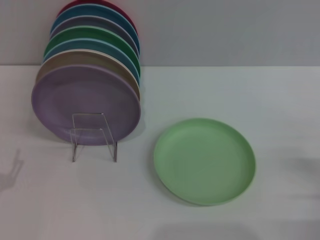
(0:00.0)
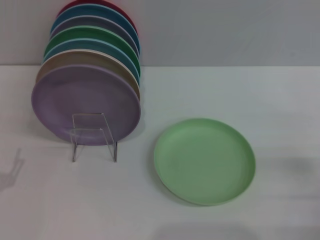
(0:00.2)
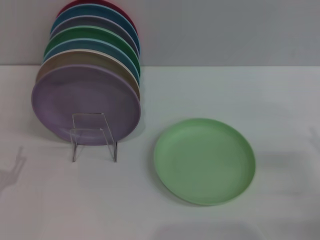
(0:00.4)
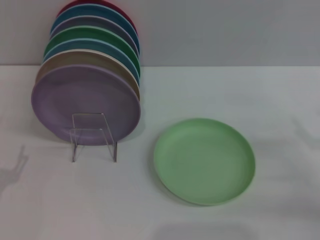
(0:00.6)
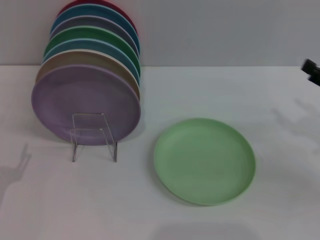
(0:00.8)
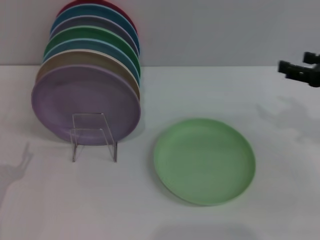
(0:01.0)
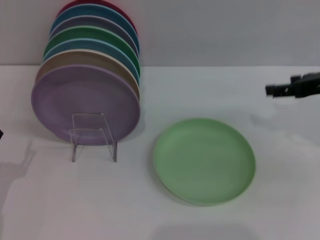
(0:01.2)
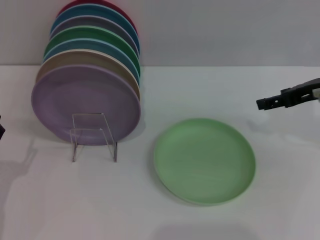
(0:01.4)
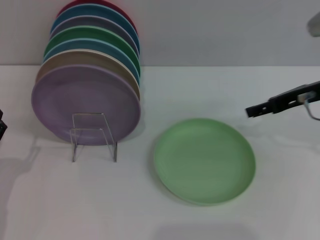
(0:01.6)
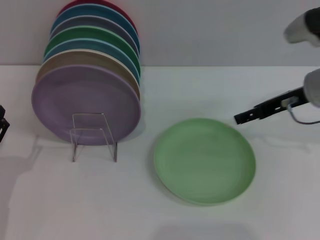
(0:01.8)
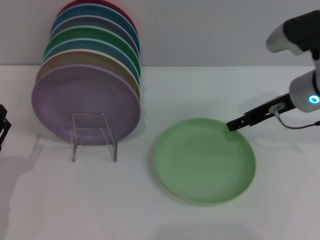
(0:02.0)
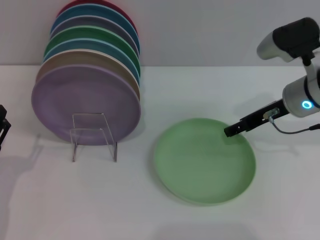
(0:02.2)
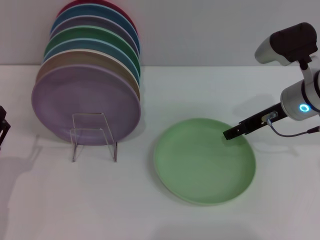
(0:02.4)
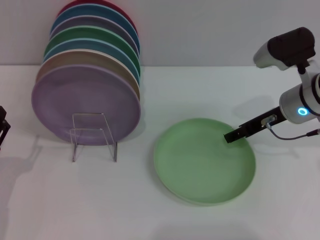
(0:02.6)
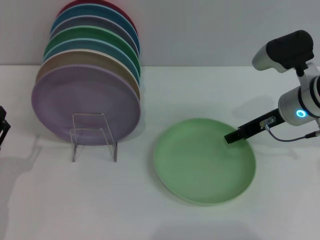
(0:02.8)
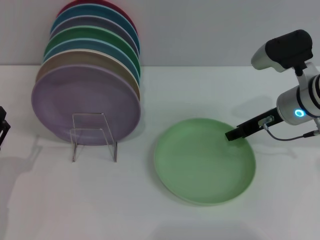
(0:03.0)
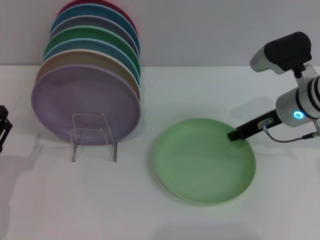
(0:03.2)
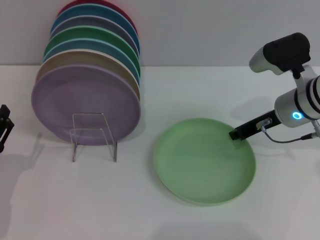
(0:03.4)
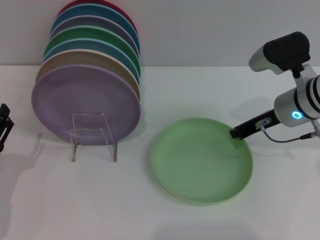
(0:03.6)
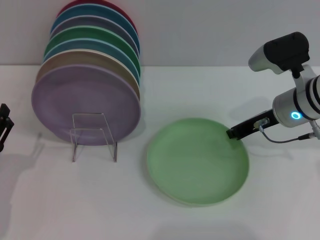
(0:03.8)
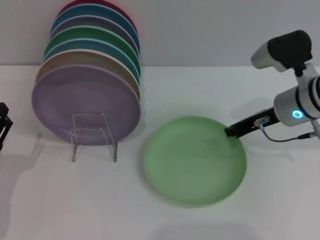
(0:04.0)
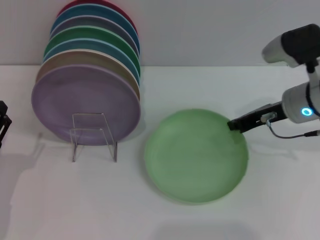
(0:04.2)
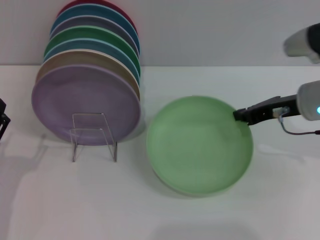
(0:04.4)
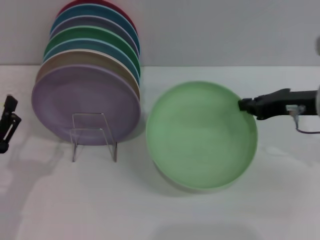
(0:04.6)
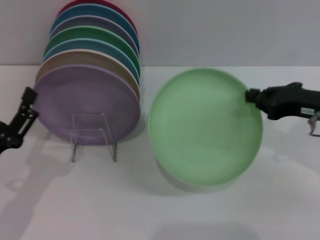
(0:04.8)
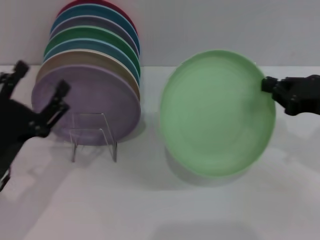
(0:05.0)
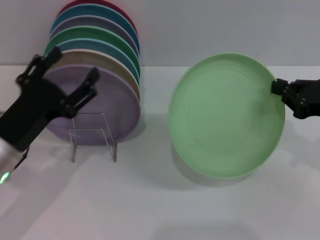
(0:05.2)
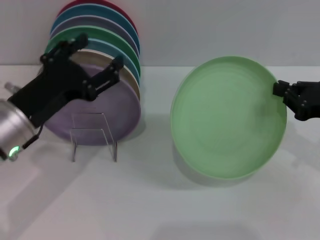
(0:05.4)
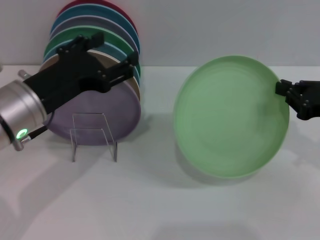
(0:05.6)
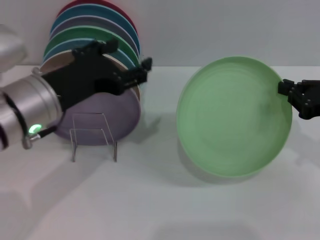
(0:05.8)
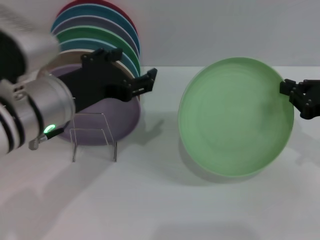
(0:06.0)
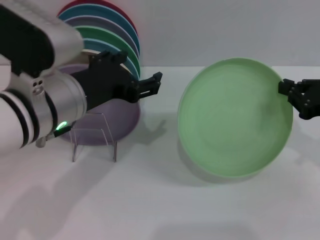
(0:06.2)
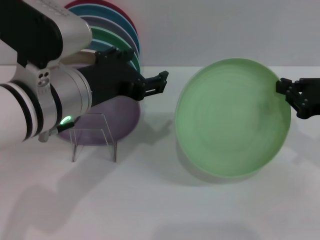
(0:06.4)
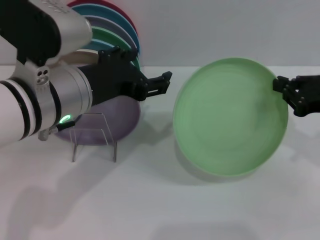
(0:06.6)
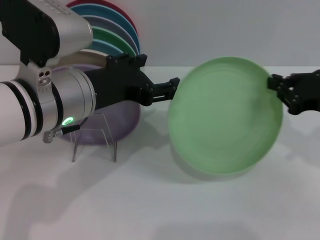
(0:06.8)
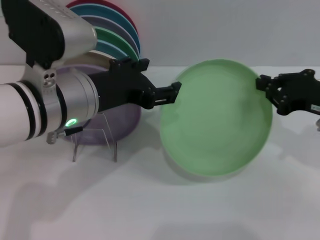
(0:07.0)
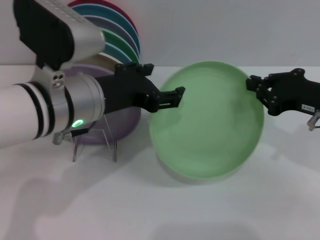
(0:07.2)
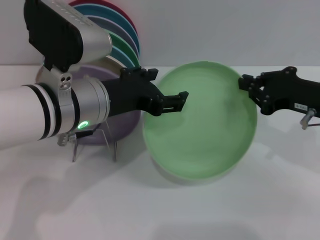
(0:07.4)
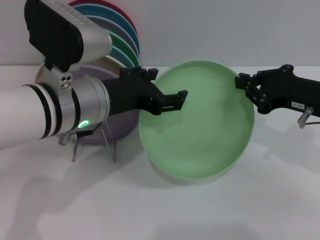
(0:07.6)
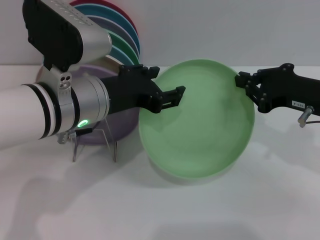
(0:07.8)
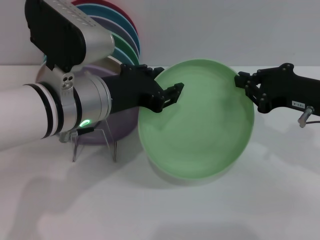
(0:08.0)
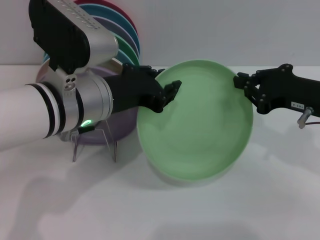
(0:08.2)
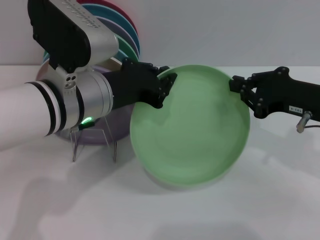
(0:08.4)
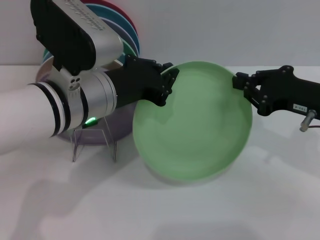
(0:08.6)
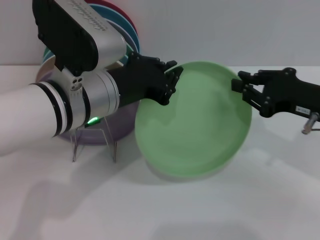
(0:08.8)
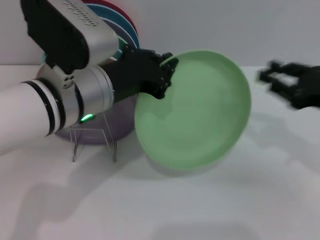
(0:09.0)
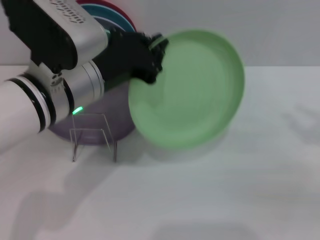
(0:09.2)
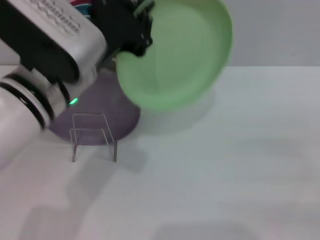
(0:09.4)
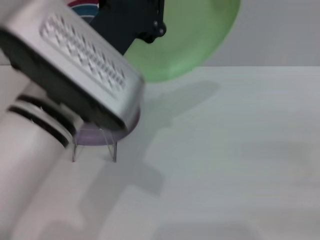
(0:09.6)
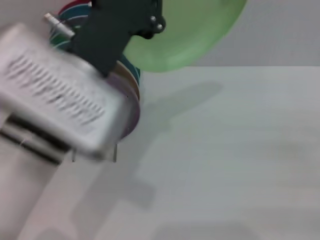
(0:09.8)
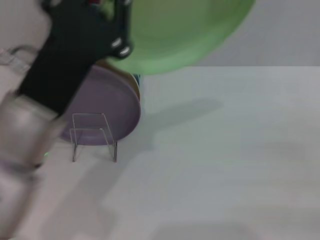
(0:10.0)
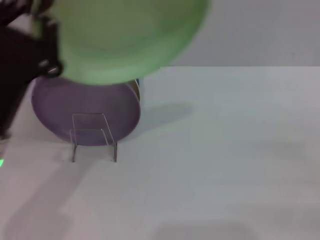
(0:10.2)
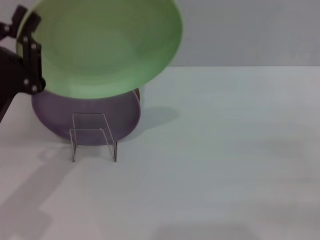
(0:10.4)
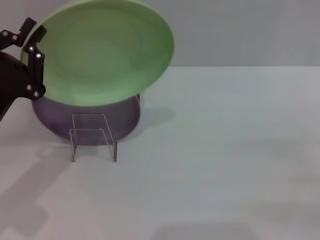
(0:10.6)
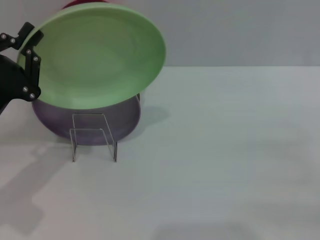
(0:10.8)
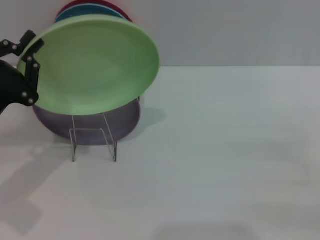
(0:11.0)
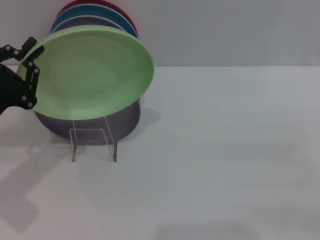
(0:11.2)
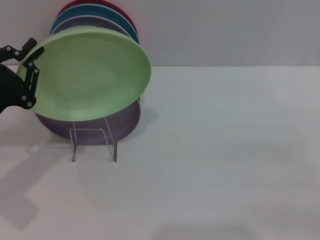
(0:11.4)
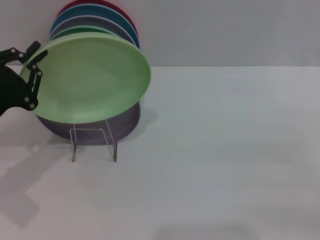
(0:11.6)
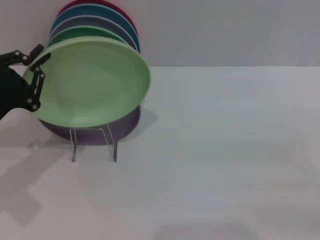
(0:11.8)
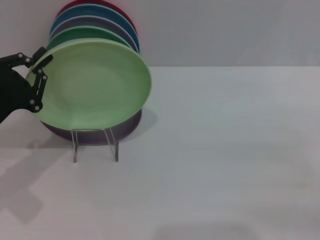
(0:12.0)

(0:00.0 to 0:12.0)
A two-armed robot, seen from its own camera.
Task of the whole recording: Grip the plate with one hand, pass it to the other, then set it on the shelf.
Step, 0:00.0 - 0:05.0: Pick up the plate with the right gripper.
Step, 0:05.2 - 0:09.2: Pass the plate from the right gripper to the left gripper.
0:00.0 - 0:01.6: The right gripper travels forward, upward and to the left by roughly 25 cm.
0:01.6 - 0:03.0: The right gripper shifts some 5 cm downward.
0:03.0 - 0:04.4: The right gripper closes up.
0:04.4 - 0:06.0: The left gripper is displaced upward, to the right and forward by some 20 cm. Meanwhile the right gripper moves to the right and backward, some 10 cm.
0:06.0 - 0:07.6: The right gripper moves to the left, some 5 cm.
0:07.6 - 0:09.0: The left gripper closes up. Meanwhile the right gripper ends up roughly 5 cm from where it was.
0:09.0 - 0:10.4: The right gripper travels to the right and backward by about 10 cm, and opens, while the left gripper heads to the left and downward, covering about 15 cm.
0:10.4 - 0:12.0: The left gripper moves about 5 cm.

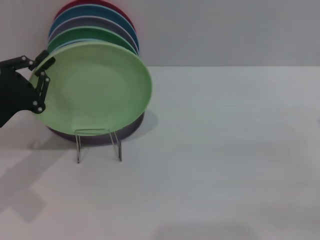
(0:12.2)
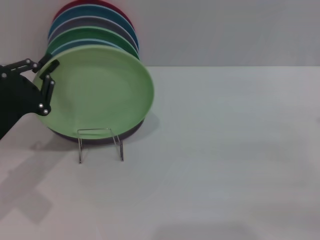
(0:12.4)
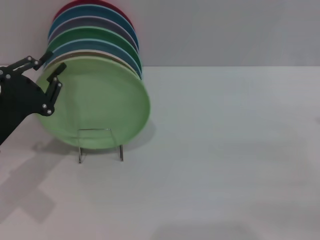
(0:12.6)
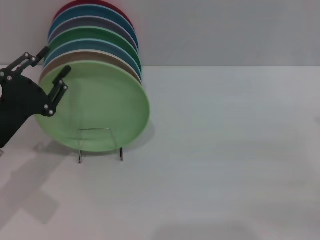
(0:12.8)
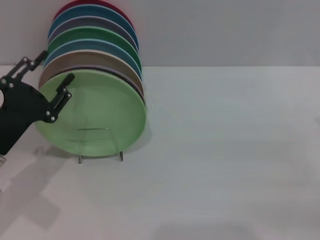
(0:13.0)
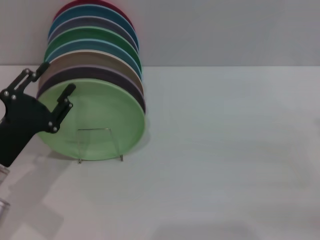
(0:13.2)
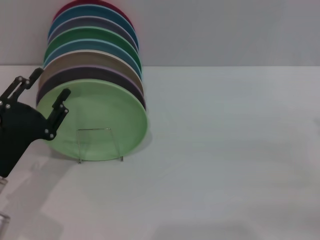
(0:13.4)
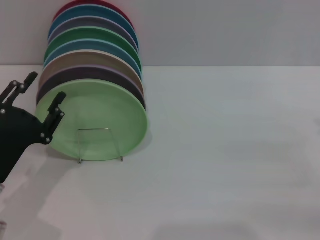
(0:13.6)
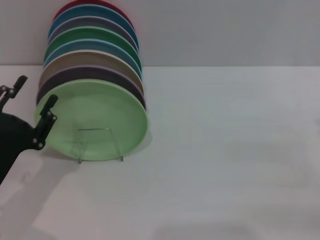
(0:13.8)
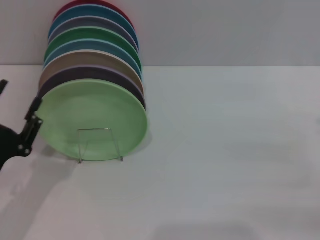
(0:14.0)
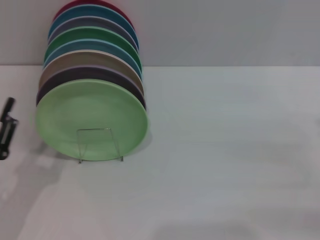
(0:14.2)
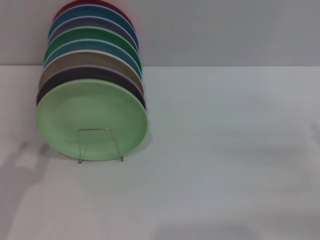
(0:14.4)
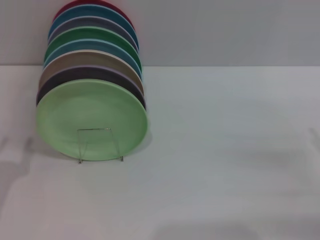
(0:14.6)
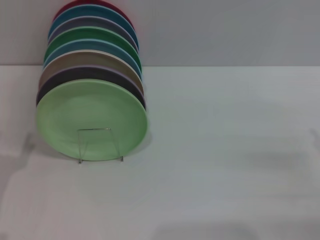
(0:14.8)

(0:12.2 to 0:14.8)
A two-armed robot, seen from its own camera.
Task of the whole recording: Grip the plate with one hand, pass it to the other, then set it on the shelf.
0:12.2 - 0:13.4: The left gripper moves roughly 5 cm, and opens.
0:13.4 - 0:14.8: The left gripper shifts approximately 5 cm to the left.

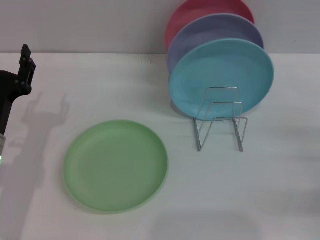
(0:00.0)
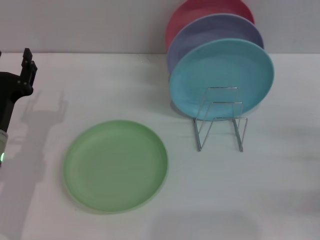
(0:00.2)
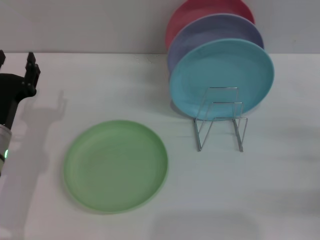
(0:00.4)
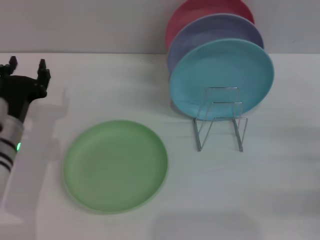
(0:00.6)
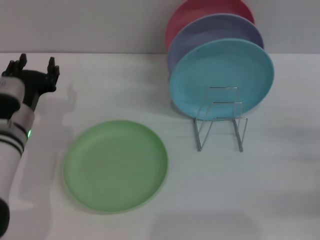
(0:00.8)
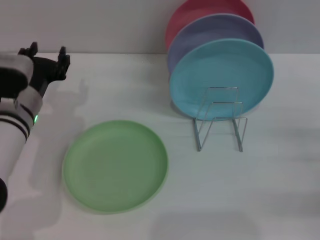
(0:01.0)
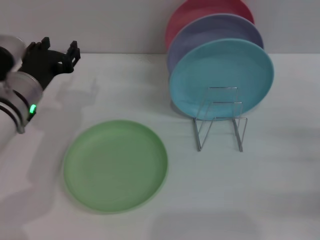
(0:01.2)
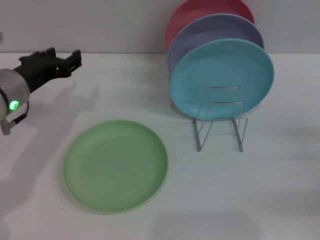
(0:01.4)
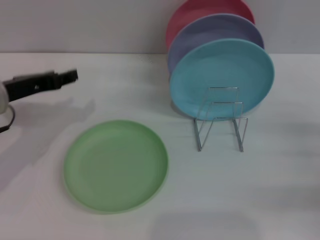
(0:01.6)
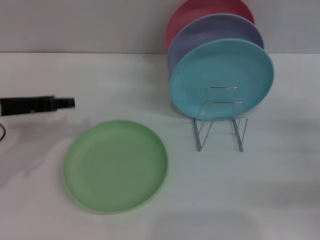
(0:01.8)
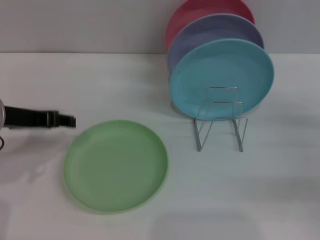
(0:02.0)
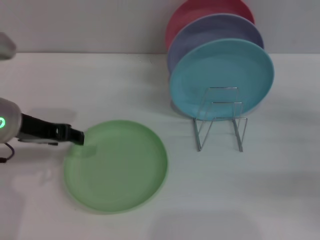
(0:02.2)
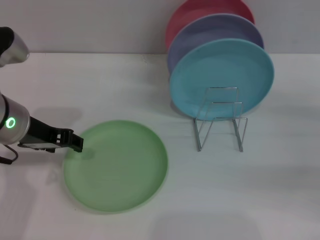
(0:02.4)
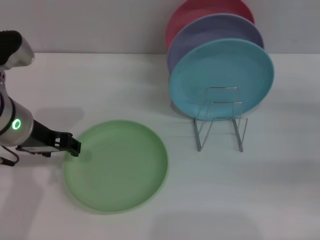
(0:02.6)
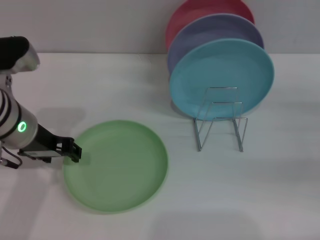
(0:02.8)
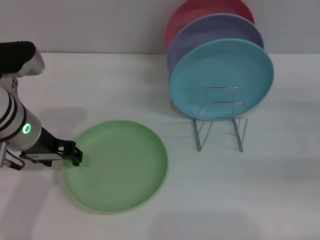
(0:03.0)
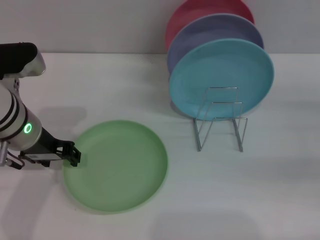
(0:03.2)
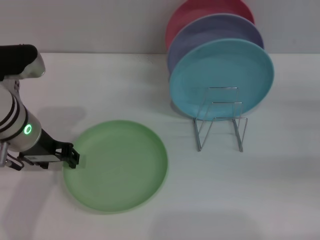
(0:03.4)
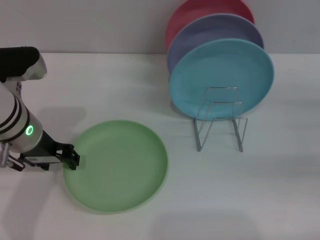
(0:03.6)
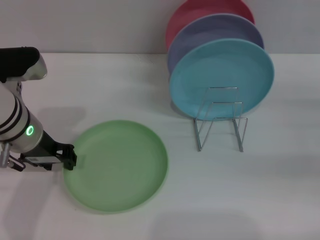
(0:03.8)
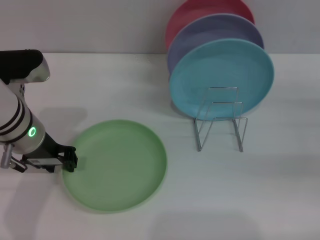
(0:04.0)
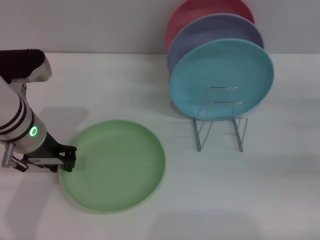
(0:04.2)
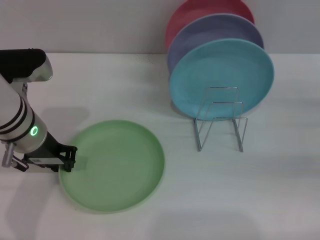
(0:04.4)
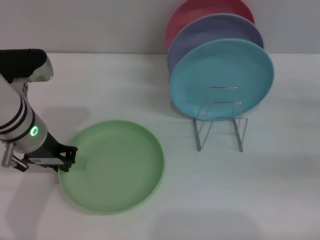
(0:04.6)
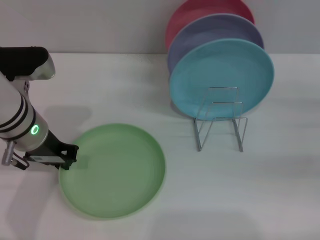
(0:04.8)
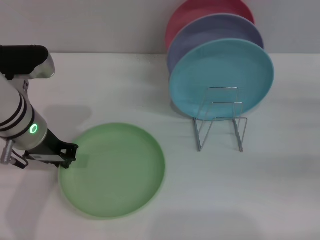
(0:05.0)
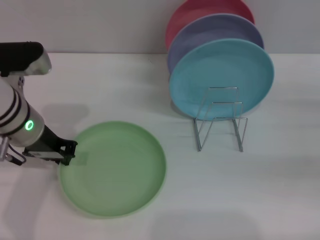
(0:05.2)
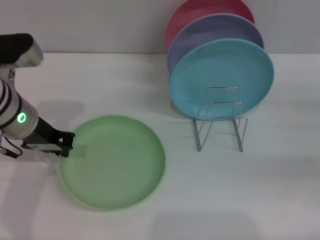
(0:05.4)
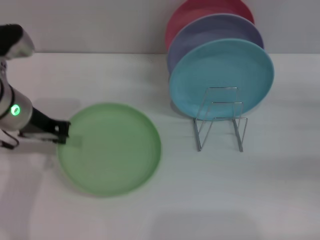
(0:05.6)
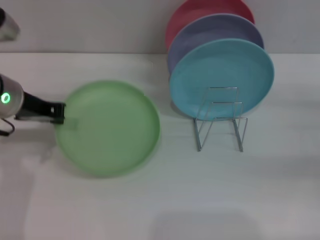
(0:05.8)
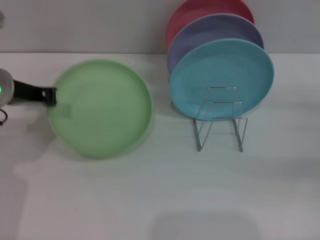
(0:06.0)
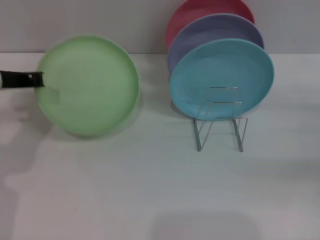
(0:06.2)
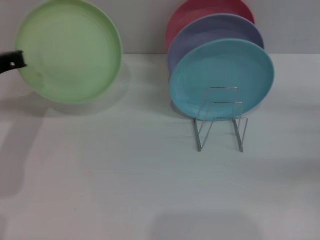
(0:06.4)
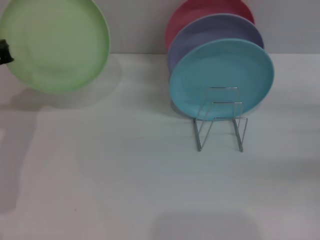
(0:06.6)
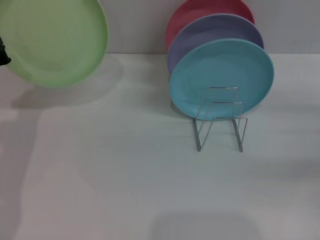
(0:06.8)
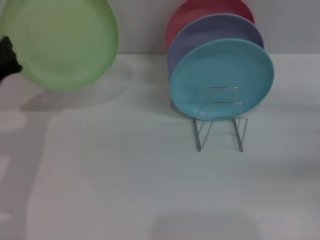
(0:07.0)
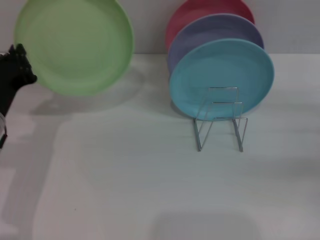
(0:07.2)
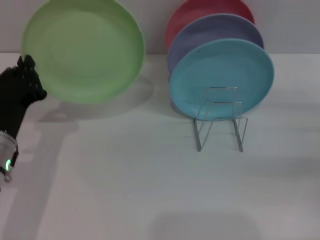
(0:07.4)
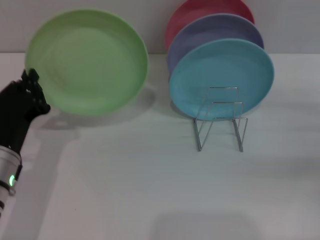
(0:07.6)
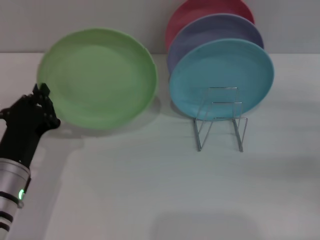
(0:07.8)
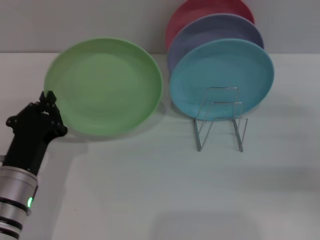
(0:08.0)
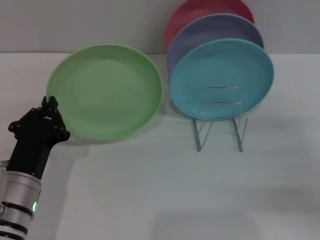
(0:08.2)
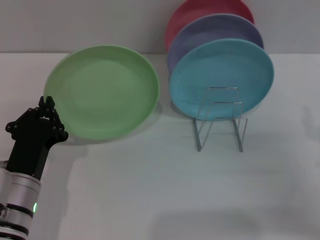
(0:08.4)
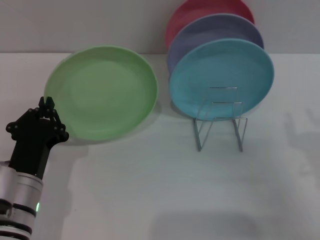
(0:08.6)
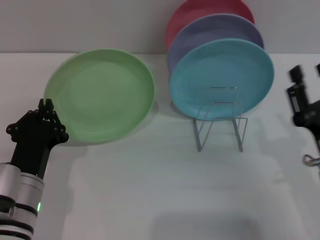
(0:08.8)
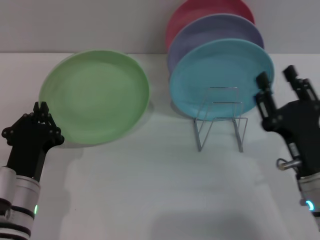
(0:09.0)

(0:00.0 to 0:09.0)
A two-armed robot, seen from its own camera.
Task of the whole recording: Grip the plate with one hand, pass it to the other, then set it on the shelf.
Step, 0:00.0 - 0:06.0: Pick up the plate with the left gripper.
0:00.0 - 0:01.6: The left gripper travels upward and forward by some 10 cm.
0:01.6 - 0:03.0: The left gripper heads to the right, covering some 5 cm; the right gripper moves some 5 cm.
0:03.0 - 0:04.4: The left gripper closes up.
0:04.4 - 0:06.0: The left gripper ends up roughly 5 cm from where it was.
0:06.0 - 0:07.6: The left gripper goes approximately 15 cm backward and downward.
0:07.6 - 0:09.0: The right gripper moves to the left and backward, some 20 cm.
